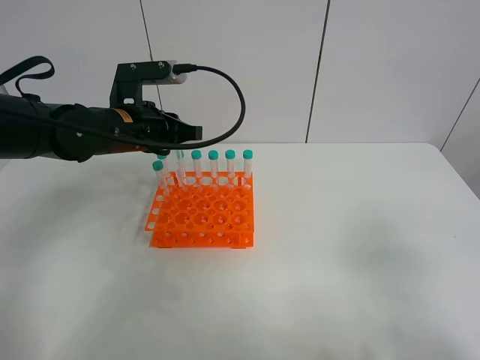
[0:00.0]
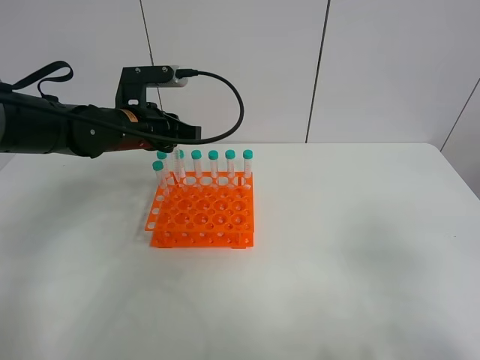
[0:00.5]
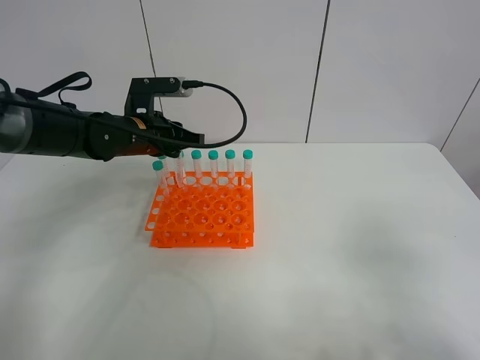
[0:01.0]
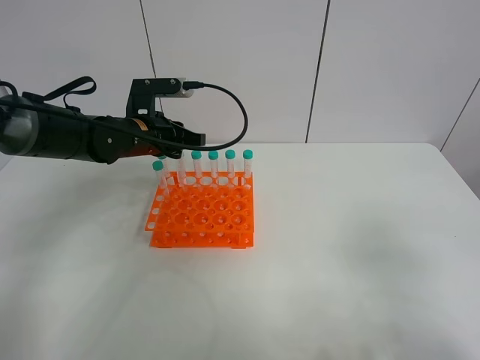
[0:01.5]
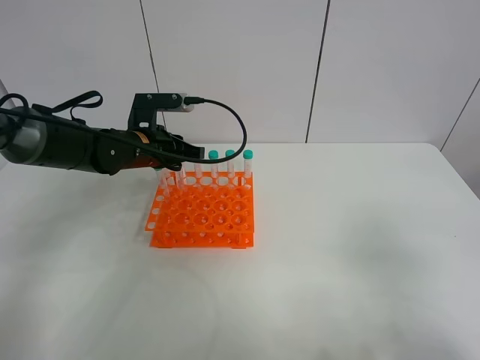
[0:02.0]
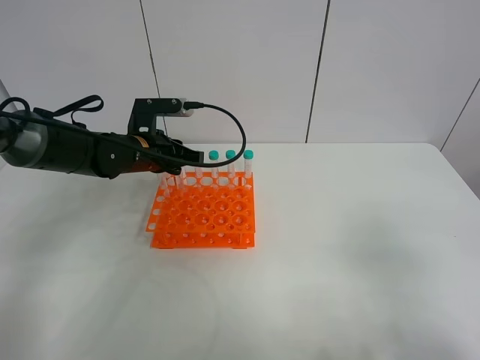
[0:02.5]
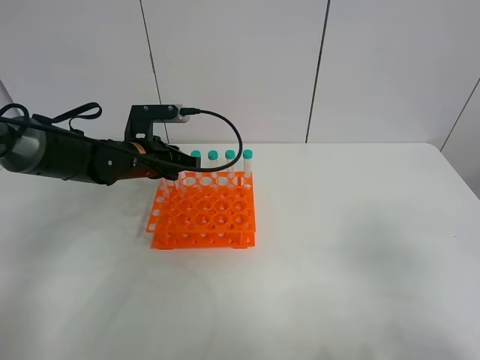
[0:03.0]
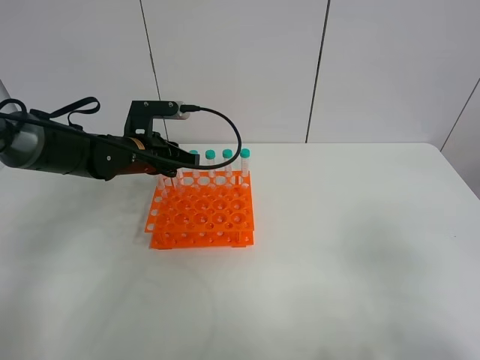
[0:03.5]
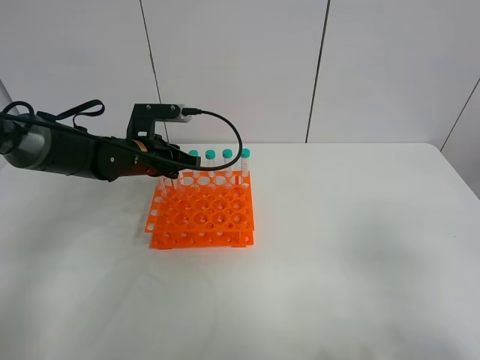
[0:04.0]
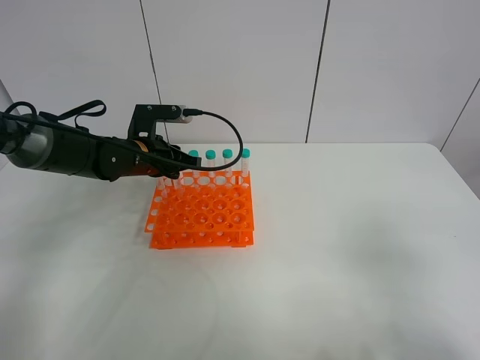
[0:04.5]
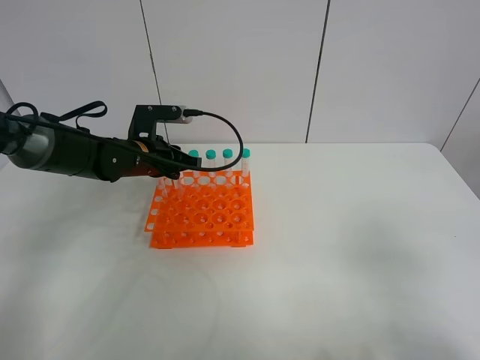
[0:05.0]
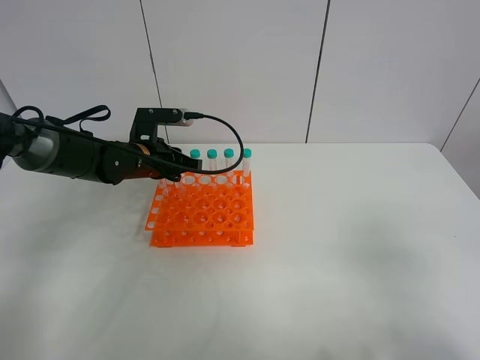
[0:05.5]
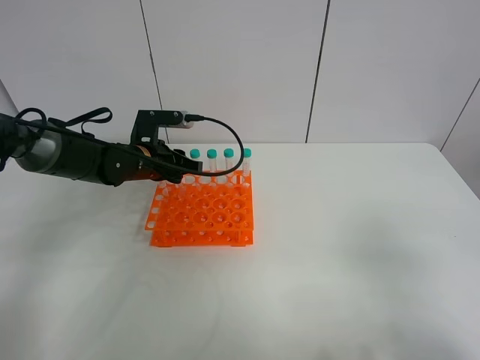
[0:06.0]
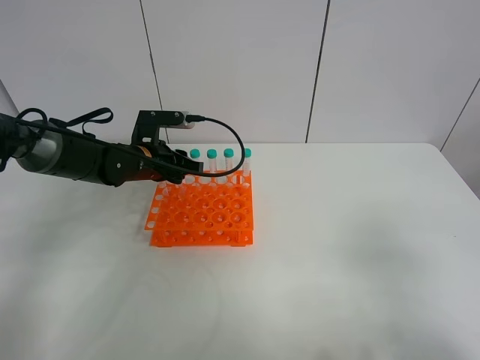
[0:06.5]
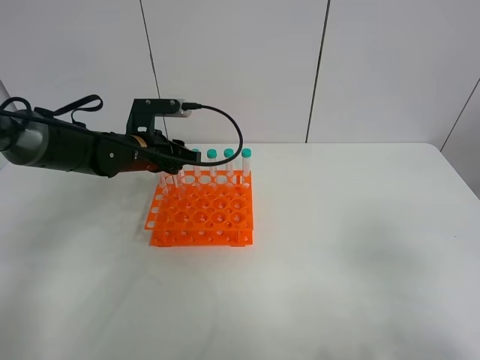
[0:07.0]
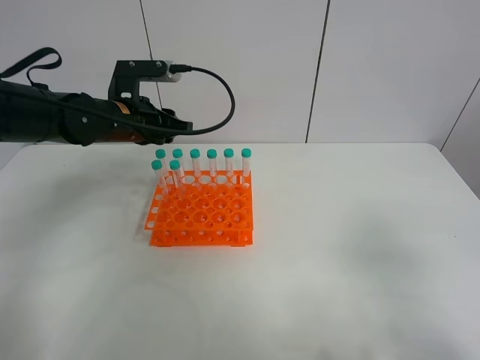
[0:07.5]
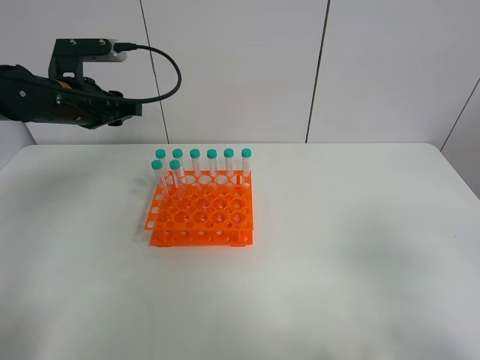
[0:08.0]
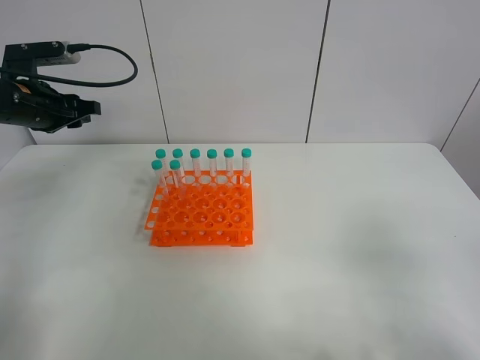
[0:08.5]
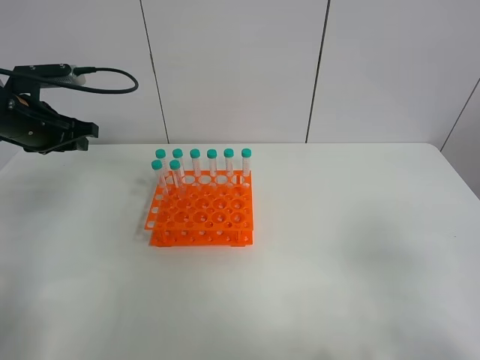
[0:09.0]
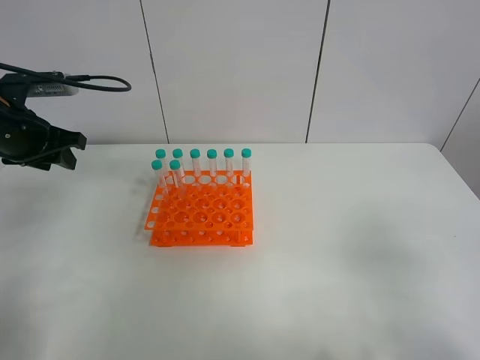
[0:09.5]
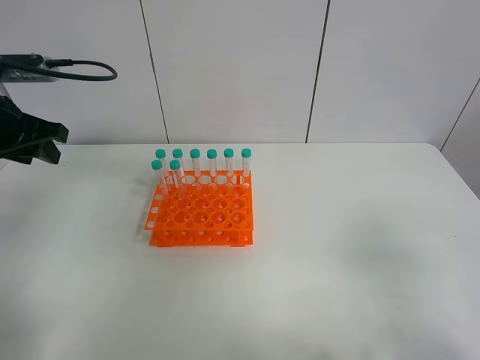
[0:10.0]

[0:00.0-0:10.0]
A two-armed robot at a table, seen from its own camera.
Task of the whole recording: Put the test tube on the table back onto the test tube rack.
Step, 0:00.0 to 0:07.5: Place the test tube on the test tube rack with the left gripper.
0:00.0 to 0:02.0: The left gripper goes about 5 cm downward.
0:02.0 to 0:04.0: The grippers make only small movements.
0:04.0 to 0:06.0: Both grippers stay about where they are.
0:06.0 to 0:08.0: The left gripper is displaced upward and to the left by approximately 15 cm.
0:08.0 to 0:10.0: The left gripper goes some 10 cm backward and to the left.

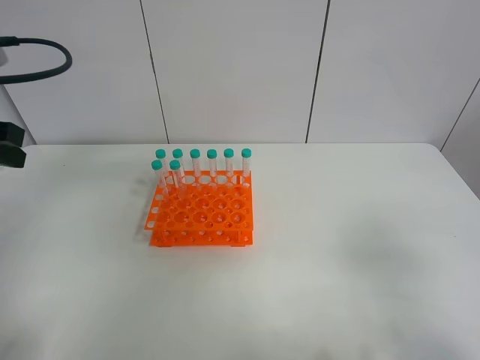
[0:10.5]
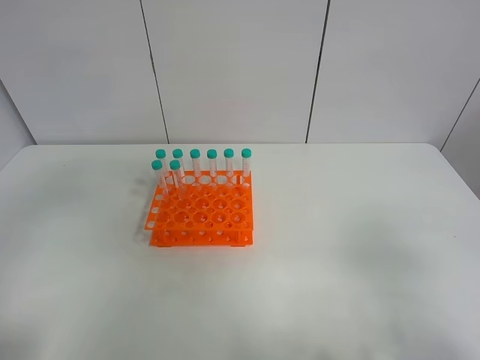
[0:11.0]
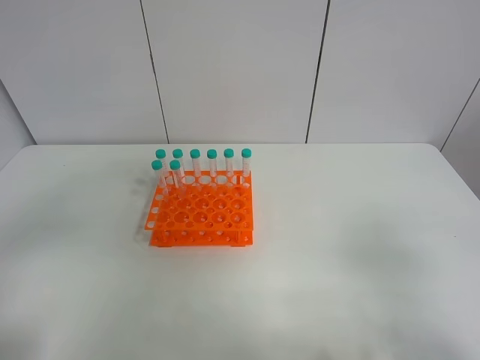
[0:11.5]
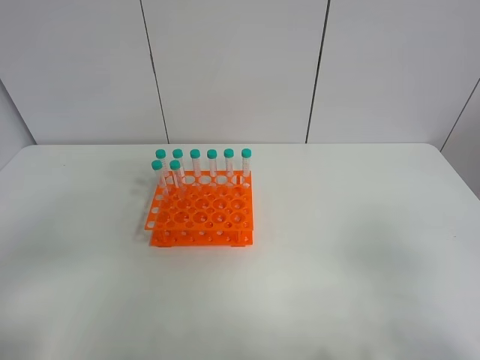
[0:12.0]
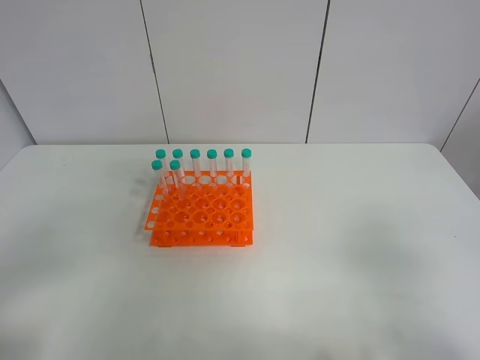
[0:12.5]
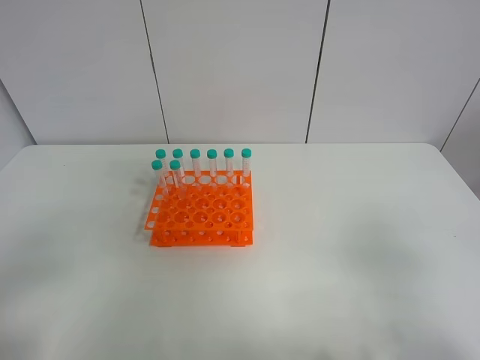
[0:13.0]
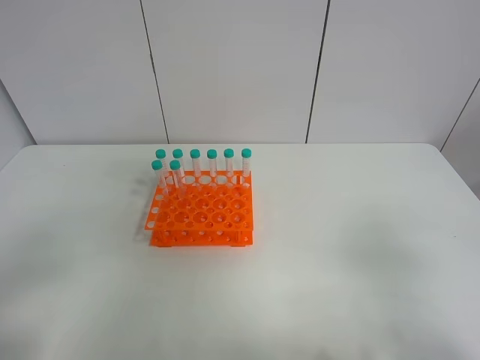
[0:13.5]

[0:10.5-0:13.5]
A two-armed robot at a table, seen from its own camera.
Task of the whole recording: Put the test tube on the table back onto the test tube rack.
0:10.5 to 0:12.0: The left gripper heads backward, covering roughly 20 cm.

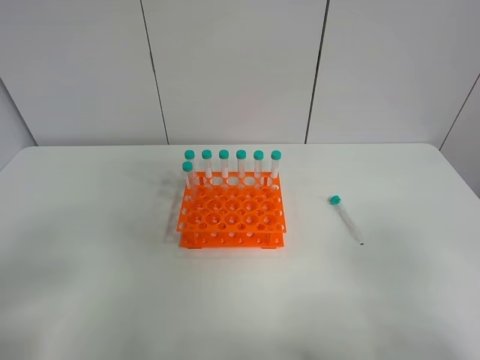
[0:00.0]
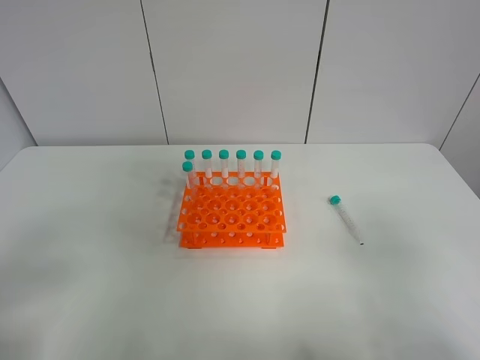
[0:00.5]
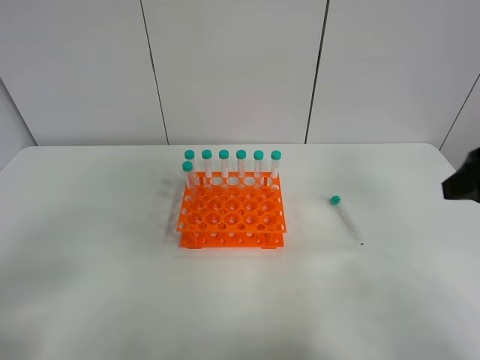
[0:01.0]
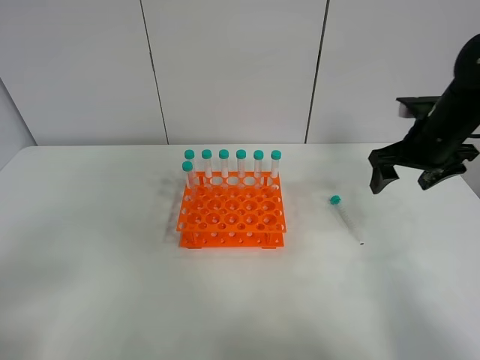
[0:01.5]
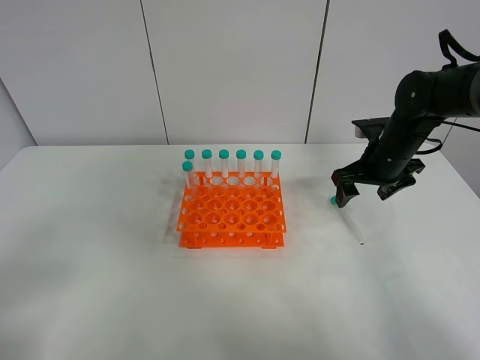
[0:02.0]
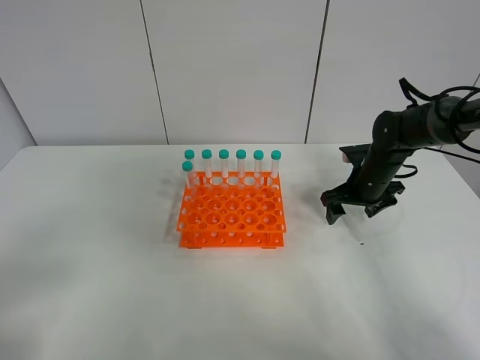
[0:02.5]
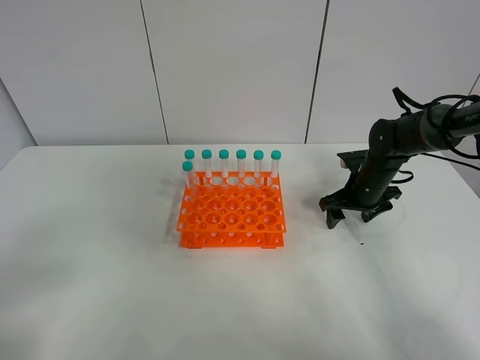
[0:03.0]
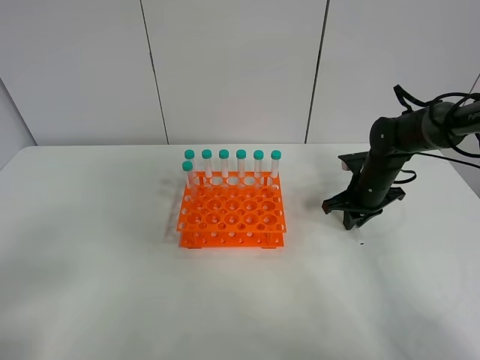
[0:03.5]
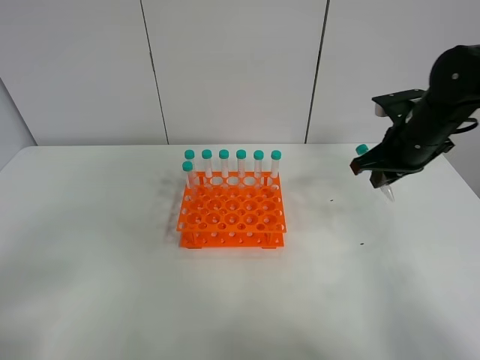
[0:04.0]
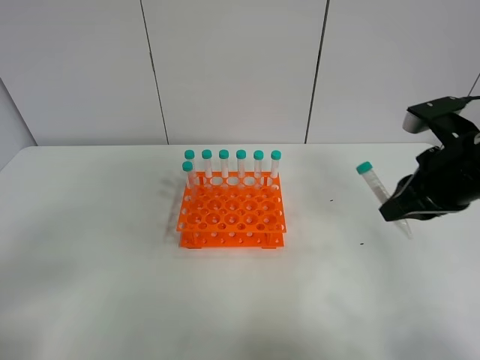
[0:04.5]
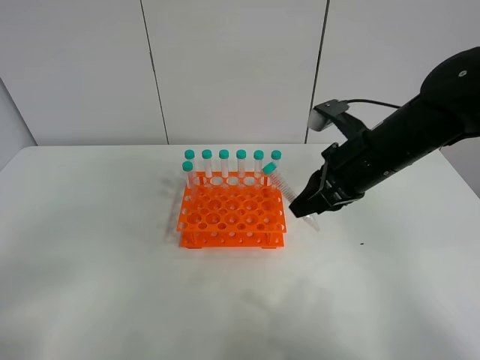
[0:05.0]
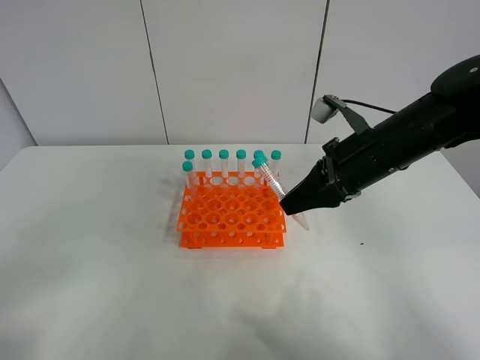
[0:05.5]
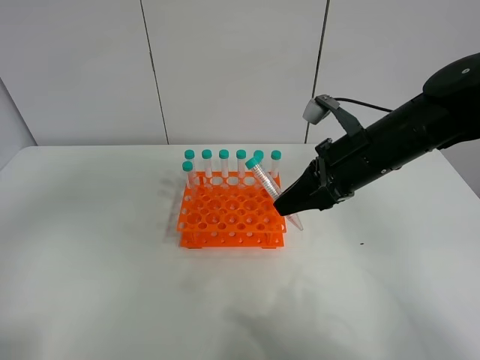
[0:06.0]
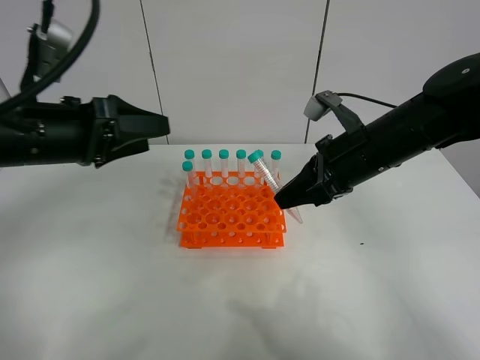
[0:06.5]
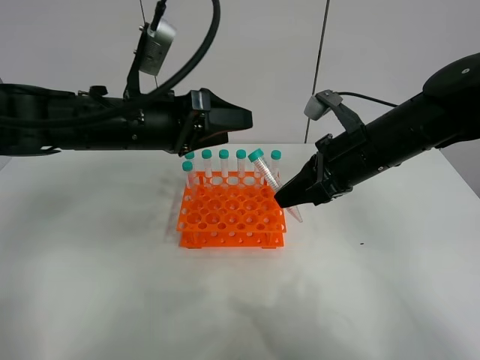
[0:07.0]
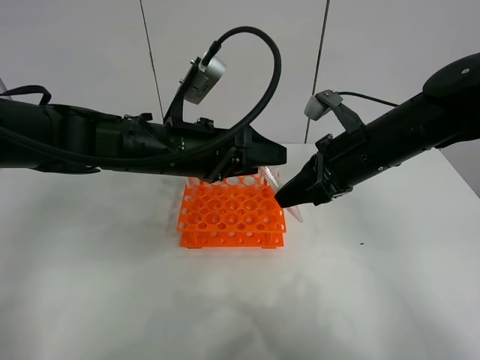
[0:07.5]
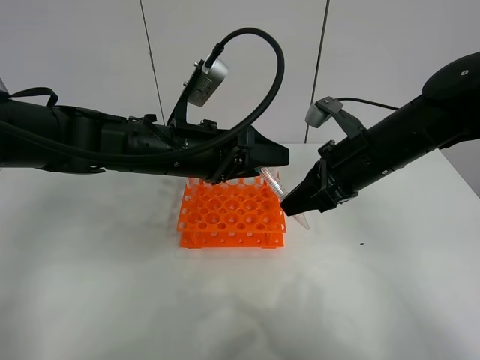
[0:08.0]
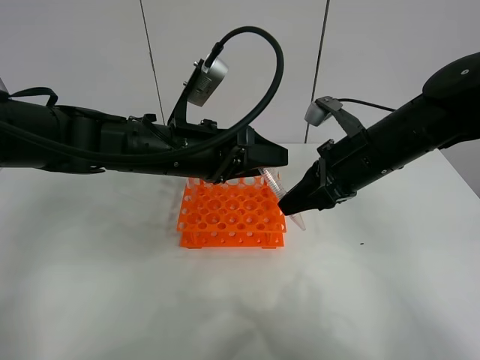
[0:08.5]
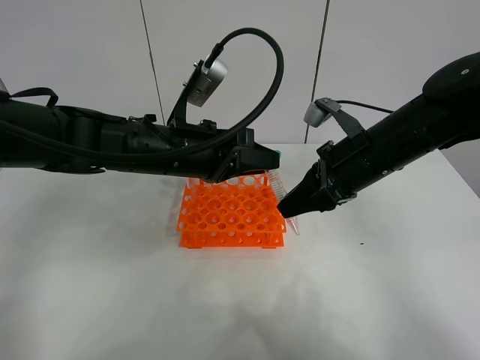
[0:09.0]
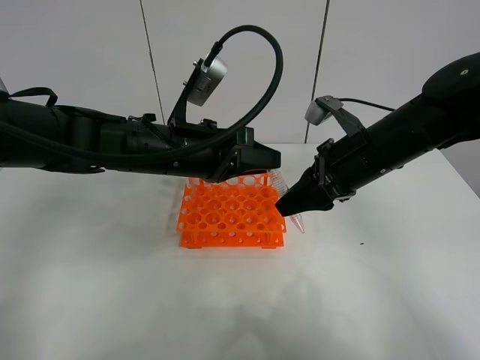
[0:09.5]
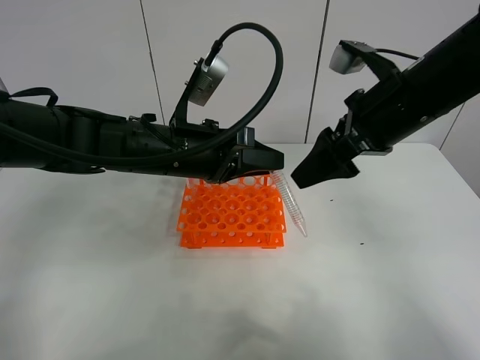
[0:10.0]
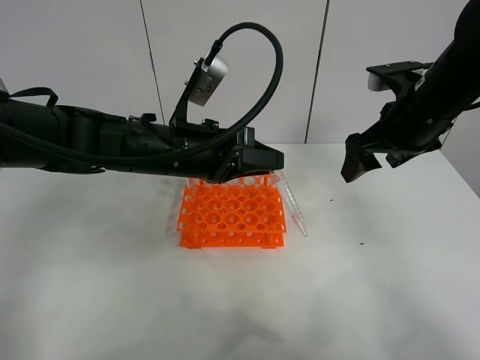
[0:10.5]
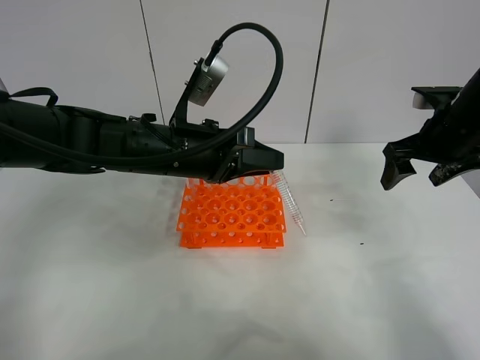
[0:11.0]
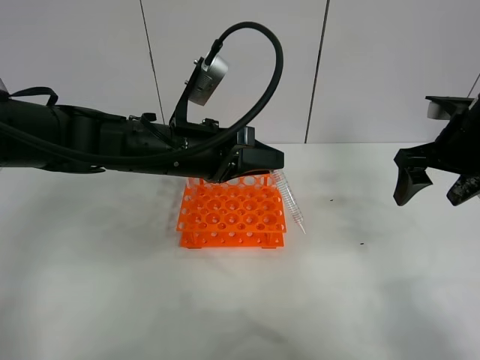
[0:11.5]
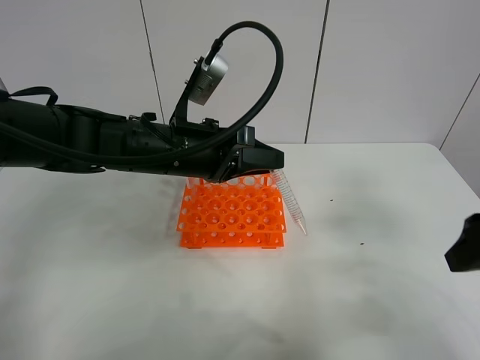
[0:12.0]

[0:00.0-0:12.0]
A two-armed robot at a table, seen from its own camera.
Task of the whole recording: Put the test tube on the table back onto the test tube rack.
Step, 0:00.0 to 0:03.0: Pick up the test tube with the right gripper.
Step, 0:03.5 to 0:09.5: Move the test tube from the right gripper to the left gripper.
0:00.0 to 0:02.0: The right gripper heads forward, covering some 40 cm.
0:02.0 to 0:04.0: The right gripper goes about 10 cm upward and backward, and closes.
0:04.0 to 0:06.0: The left gripper goes roughly 15 cm forward and upward. Meanwhile the right gripper travels to the left by approximately 10 cm.
0:06.0 to 0:08.0: The left gripper travels to the right, forward and downward by some 30 cm.
0:08.0 to 0:10.0: The right gripper moves upward, some 10 cm, and opens up, while the left gripper closes its fingers.
0:10.0 to 0:12.0: The right gripper is displaced backward and to the right by roughly 20 cm.
